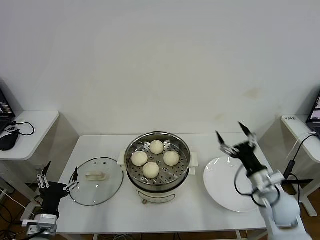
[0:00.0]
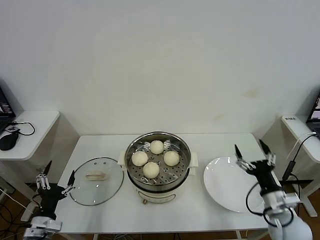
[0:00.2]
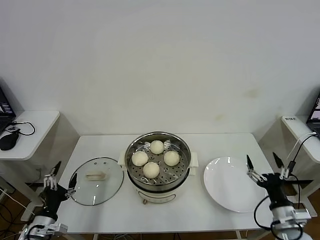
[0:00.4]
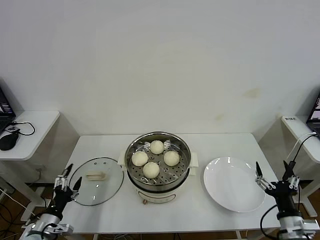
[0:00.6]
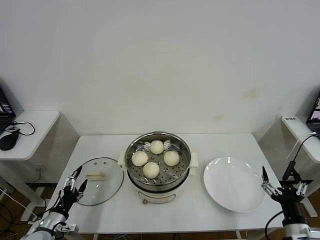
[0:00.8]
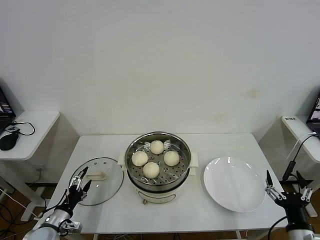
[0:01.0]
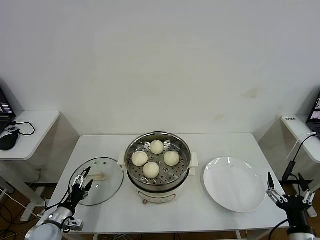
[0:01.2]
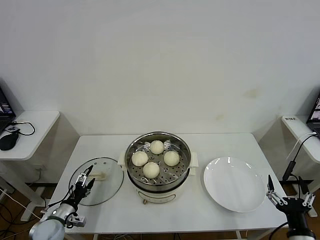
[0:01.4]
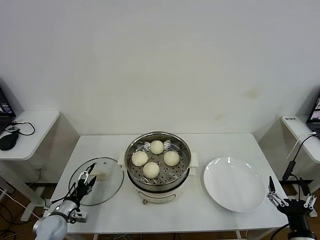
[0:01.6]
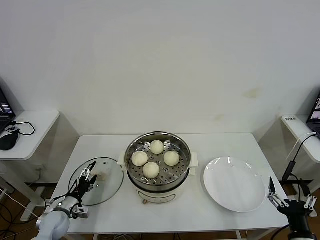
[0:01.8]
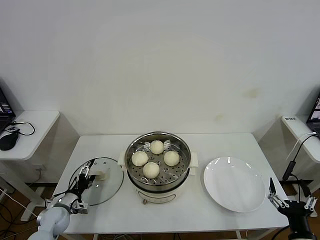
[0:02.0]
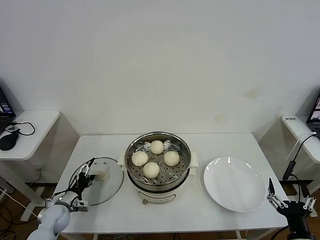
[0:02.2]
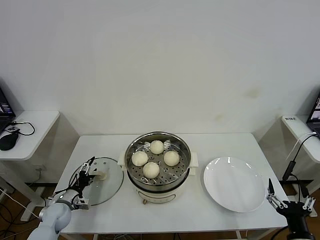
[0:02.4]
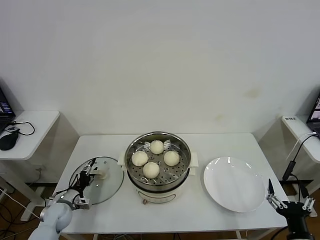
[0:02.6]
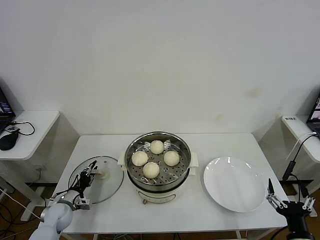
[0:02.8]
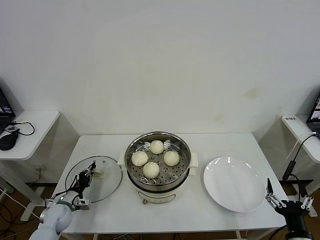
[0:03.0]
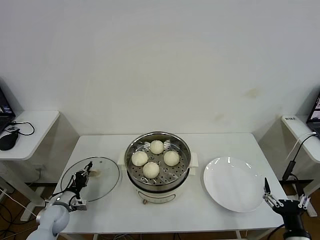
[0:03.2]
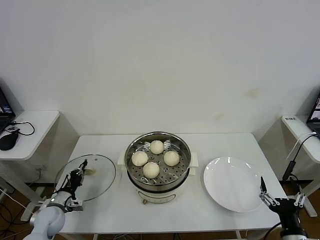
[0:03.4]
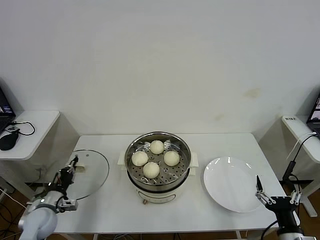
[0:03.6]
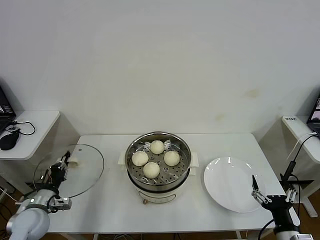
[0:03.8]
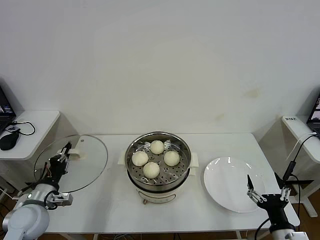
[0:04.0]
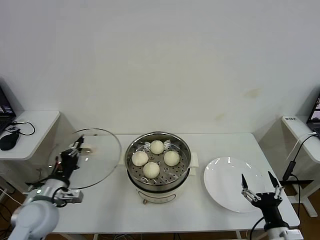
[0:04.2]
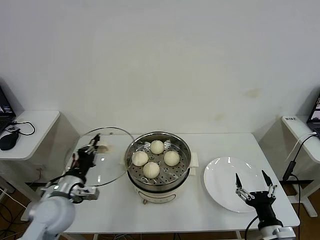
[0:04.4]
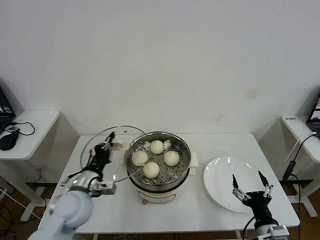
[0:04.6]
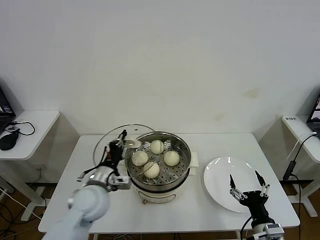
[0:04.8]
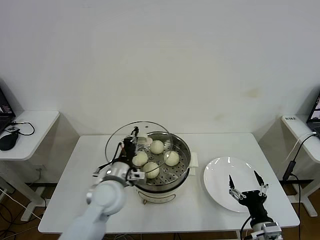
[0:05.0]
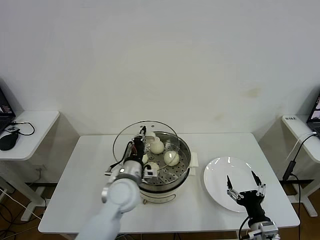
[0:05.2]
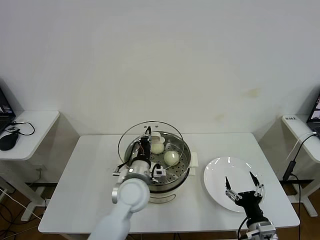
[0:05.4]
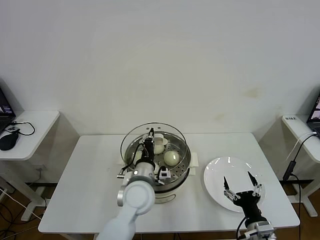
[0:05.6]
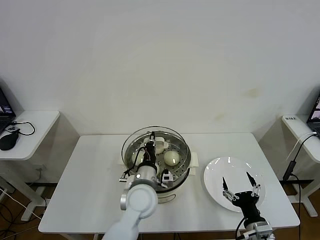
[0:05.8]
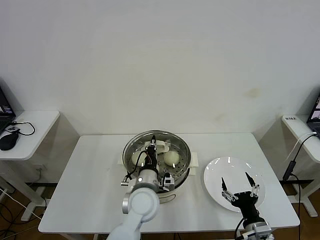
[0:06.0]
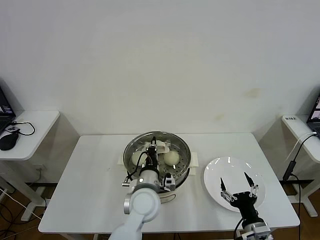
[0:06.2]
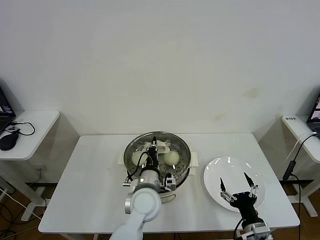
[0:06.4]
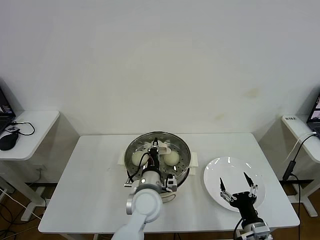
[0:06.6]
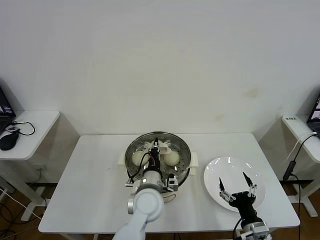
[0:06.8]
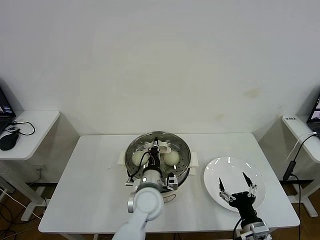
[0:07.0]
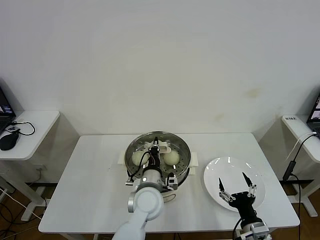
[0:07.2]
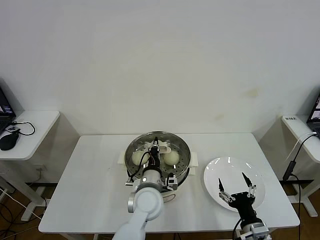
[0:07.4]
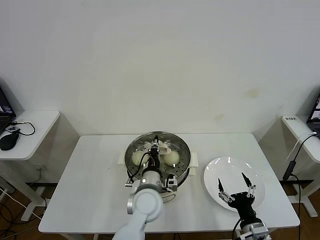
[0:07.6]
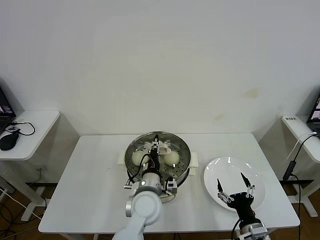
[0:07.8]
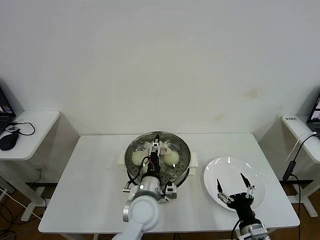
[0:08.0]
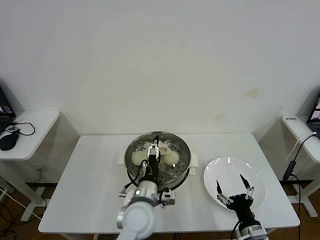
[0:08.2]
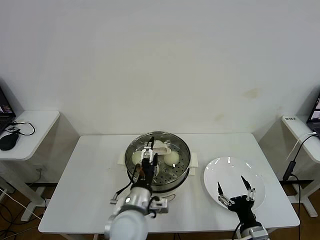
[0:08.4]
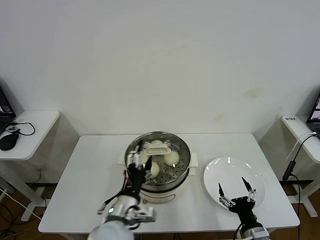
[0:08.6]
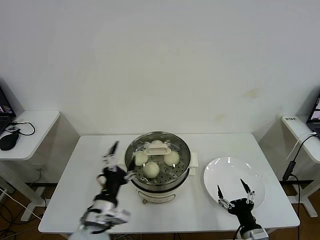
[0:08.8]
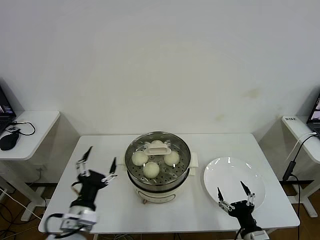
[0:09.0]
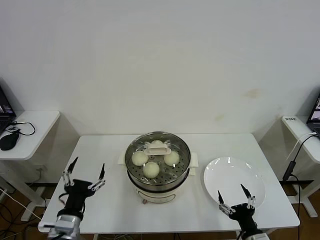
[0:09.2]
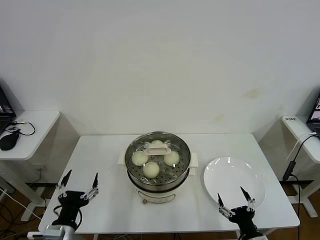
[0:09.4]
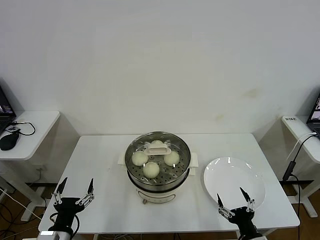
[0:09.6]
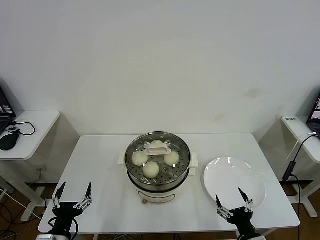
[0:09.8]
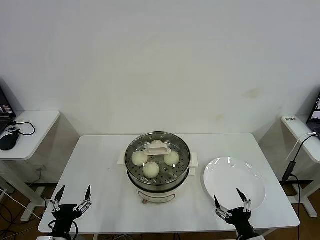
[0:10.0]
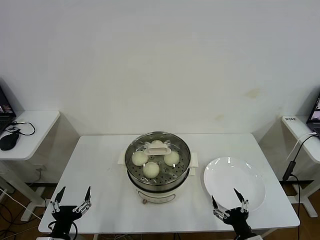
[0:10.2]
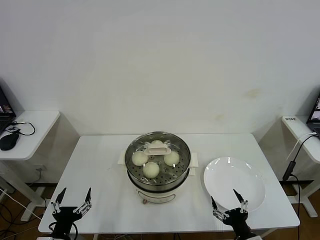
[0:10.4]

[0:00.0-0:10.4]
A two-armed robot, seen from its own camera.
Task of the whole recording: take steamed baozi put them in steamer then cover it.
Step, 0:00.0 to 0:03.2: Grasp the pot lid with left gripper.
Step, 0:03.4 to 0:08.0: Place the pot lid on the steamer with left gripper.
0:00.0 to 0:01.4: The right gripper shifts roughly 20 cm backward, while the left gripper shifts approximately 15 cm downward and forward.
0:01.4 to 0:03.0: The left gripper travels forward by approximately 5 cm, and closes its fingers.
0:03.0 to 0:04.4: The right gripper changes place by some 5 cm. The left gripper is displaced upward and to the right by some 25 cm.
0:04.4 to 0:06.0: The left gripper goes some 25 cm to the right.
0:06.0 to 0:07.4: The grippers make only small movements.
0:07.4 to 0:09.0: The left gripper moves to the left and backward, roughly 20 cm, and opens up.
0:09.0 to 0:10.4: The left gripper goes about 15 cm to the left, downward and backward.

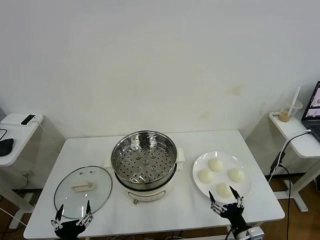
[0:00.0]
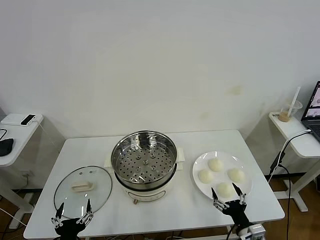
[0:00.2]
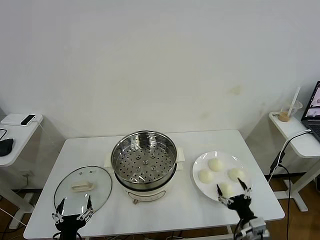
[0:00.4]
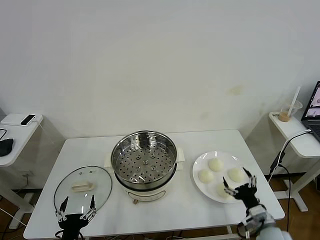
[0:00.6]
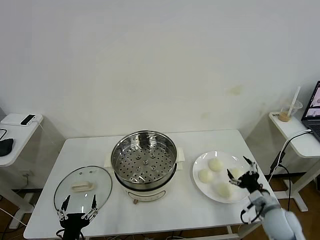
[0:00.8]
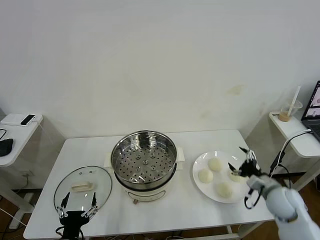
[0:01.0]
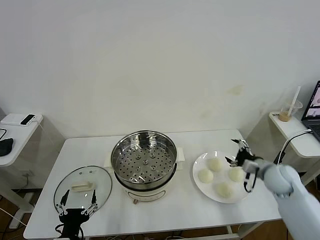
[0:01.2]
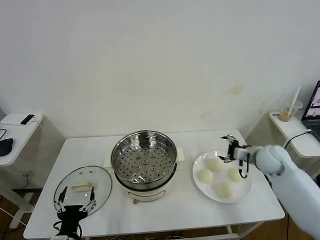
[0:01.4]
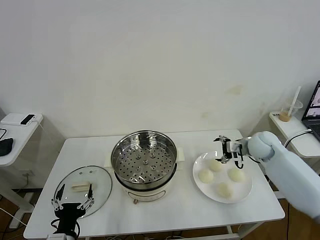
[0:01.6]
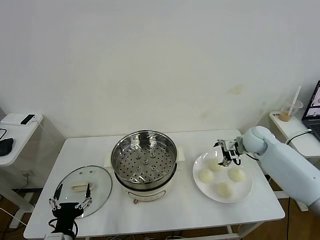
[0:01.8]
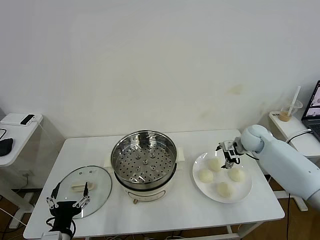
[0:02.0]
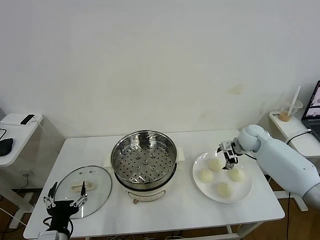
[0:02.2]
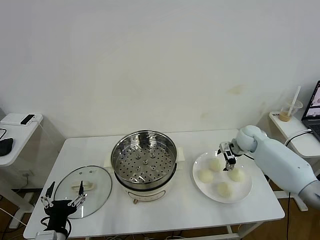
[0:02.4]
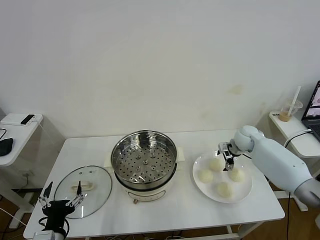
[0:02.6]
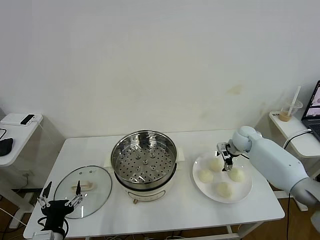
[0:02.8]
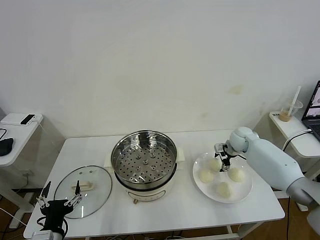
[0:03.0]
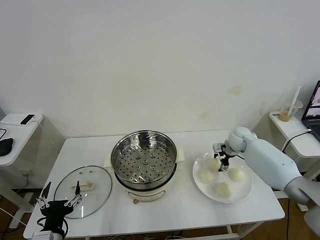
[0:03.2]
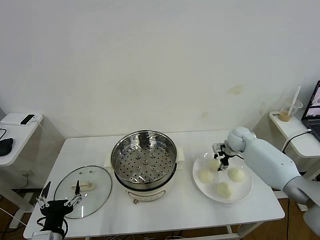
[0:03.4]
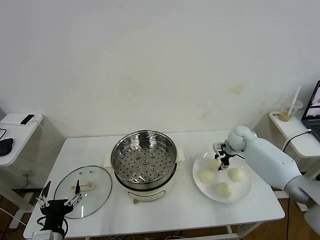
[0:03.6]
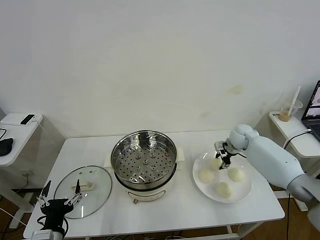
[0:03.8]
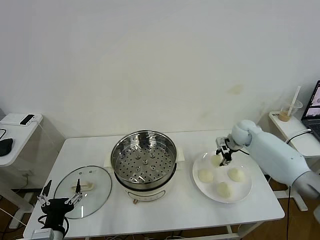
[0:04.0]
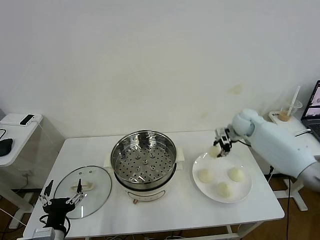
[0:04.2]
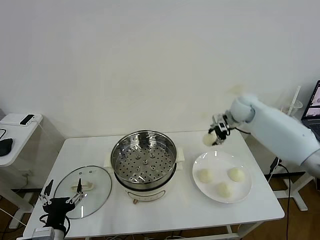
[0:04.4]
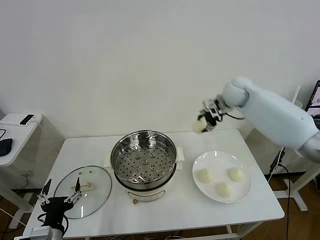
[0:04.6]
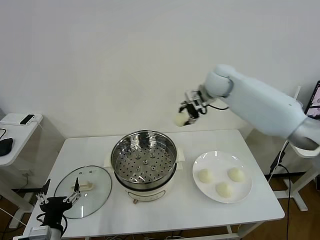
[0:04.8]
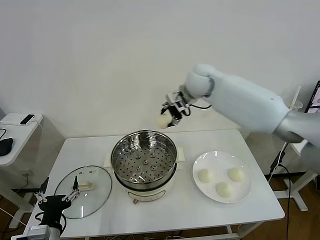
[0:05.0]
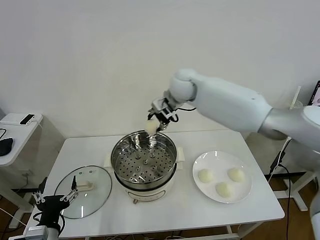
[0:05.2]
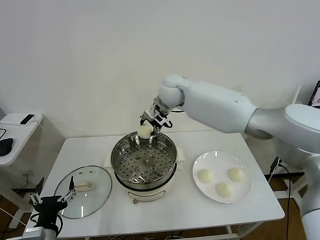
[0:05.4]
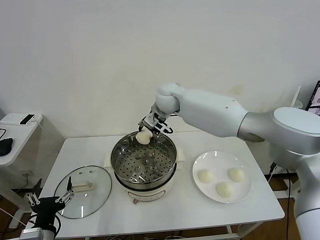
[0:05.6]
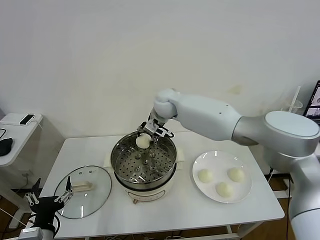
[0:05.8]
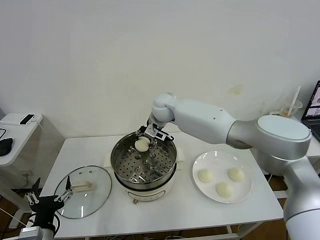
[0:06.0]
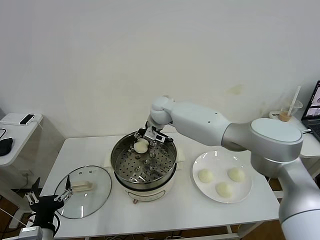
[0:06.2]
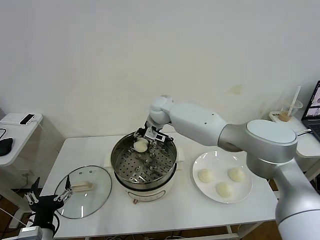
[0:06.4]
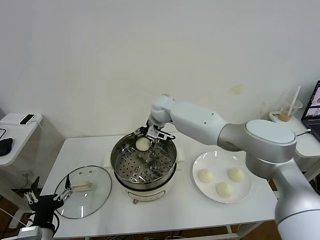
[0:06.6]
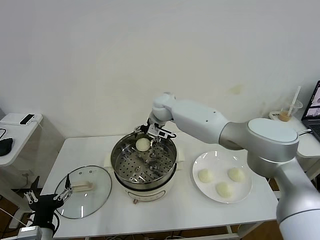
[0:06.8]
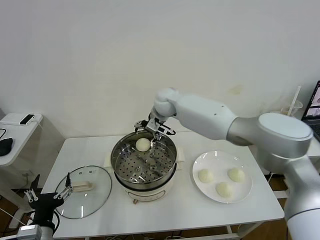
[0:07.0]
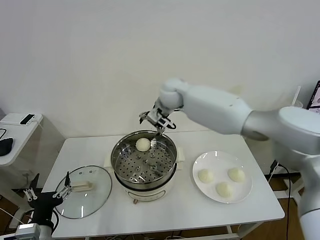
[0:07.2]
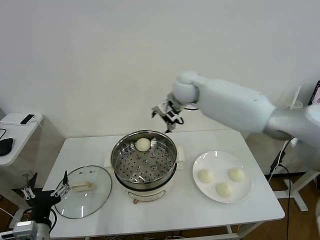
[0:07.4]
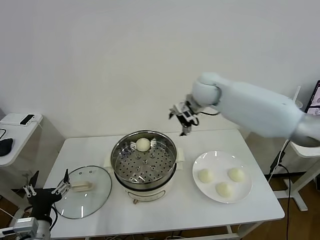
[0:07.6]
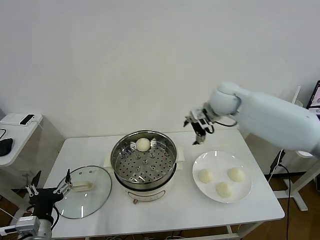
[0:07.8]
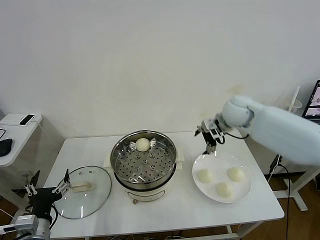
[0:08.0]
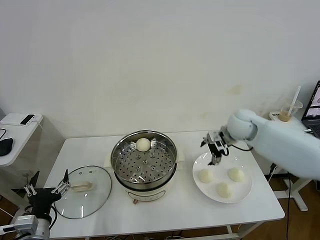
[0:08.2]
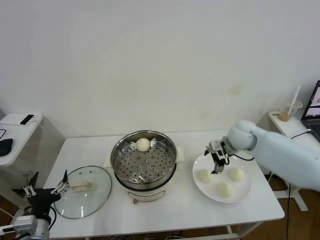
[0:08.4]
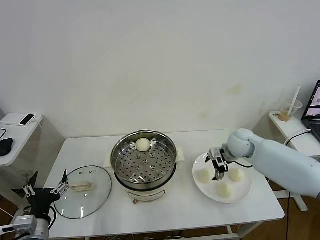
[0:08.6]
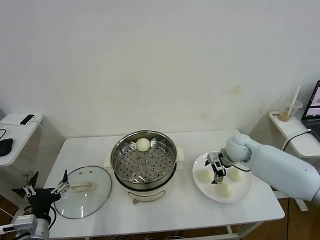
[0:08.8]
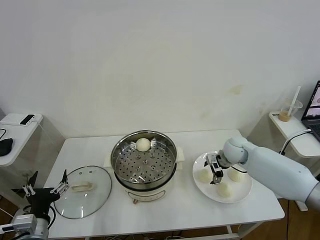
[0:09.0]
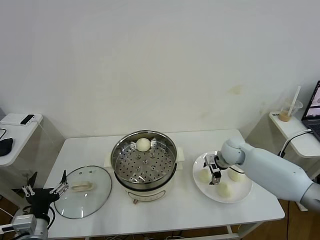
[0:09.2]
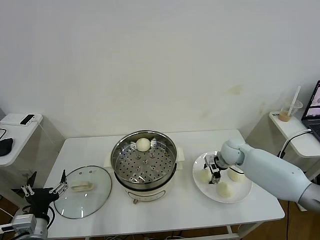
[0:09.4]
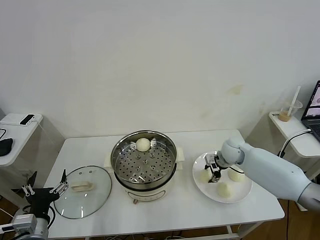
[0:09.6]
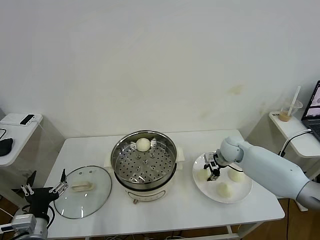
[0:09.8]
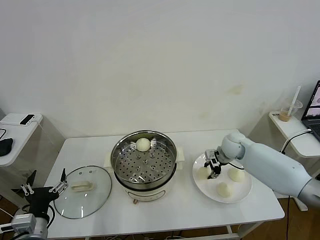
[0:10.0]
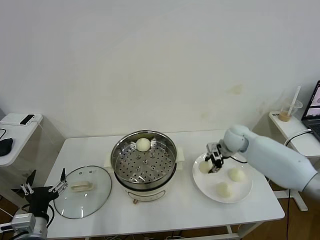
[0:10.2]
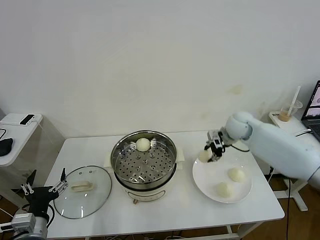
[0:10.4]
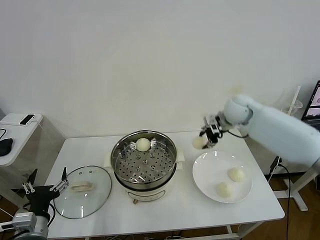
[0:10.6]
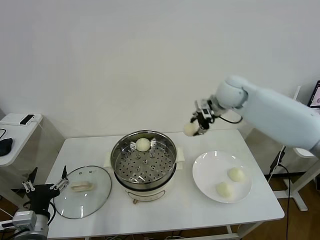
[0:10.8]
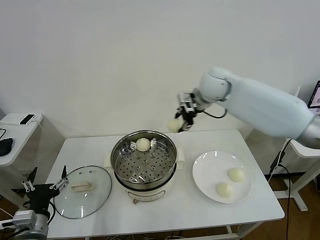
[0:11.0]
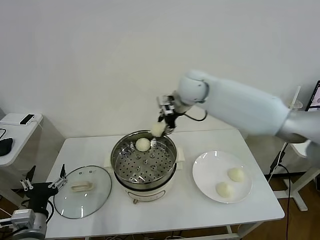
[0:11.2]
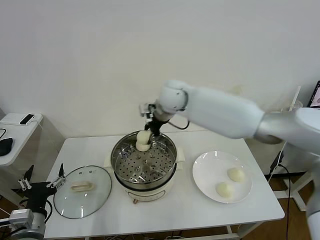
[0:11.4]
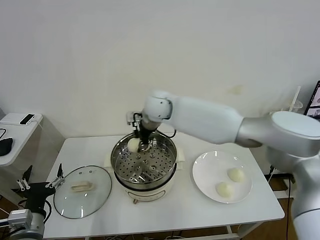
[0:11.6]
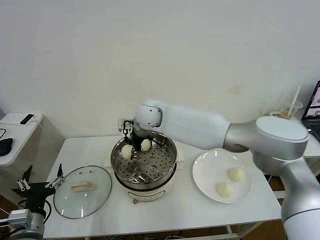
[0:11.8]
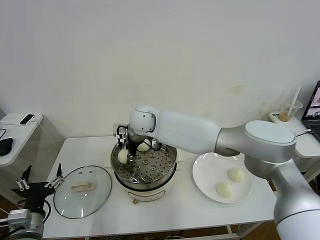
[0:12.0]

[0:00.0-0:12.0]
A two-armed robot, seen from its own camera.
Task of the whole recording: take steamed baozi put them in steamer then cover it.
Step, 0:00.0 to 0:03.4: Grasp the baozi in the plate with right gripper.
Step, 0:03.6 to 0:06.8: Place the baozi on the steamer with right gripper.
Step, 0:07.0 to 0:09.6: Grasp the baozi in the plate with right gripper.
0:01.6 to 0:03.0: The right gripper travels forward and downward by about 10 cm.
0:03.0 to 0:04.4: The right gripper shifts some 20 cm upward, and closes.
0:04.4 to 0:06.0: The right gripper goes roughly 25 cm to the left.
0:06.0 to 0:07.6: The right gripper moves to the right and upward, about 20 cm, and opens.
0:07.6 to 0:09.0: The right gripper is displaced downward and to the right by about 25 cm.
0:09.0 to 0:10.4: The right gripper heads upward, covering some 15 cm, and closes its fingers.
0:10.4 to 0:12.0: The right gripper heads to the left, covering some 35 cm.
